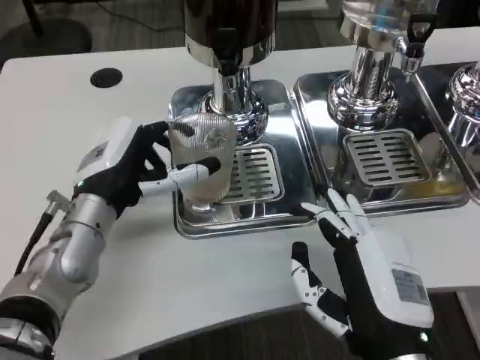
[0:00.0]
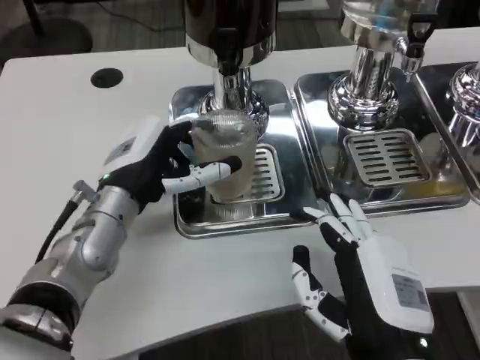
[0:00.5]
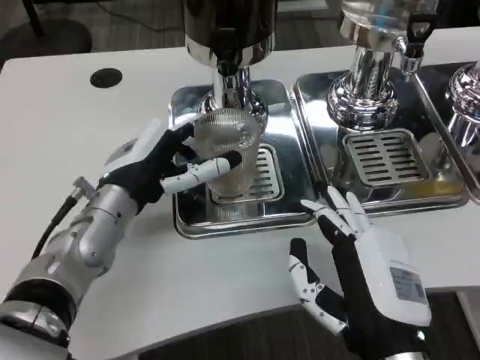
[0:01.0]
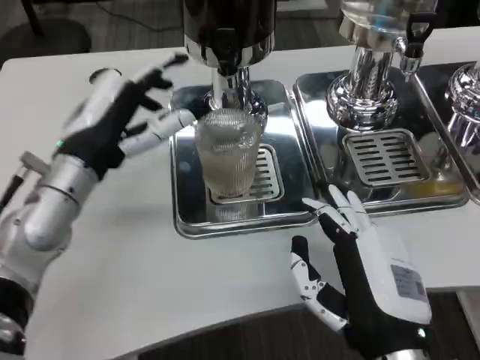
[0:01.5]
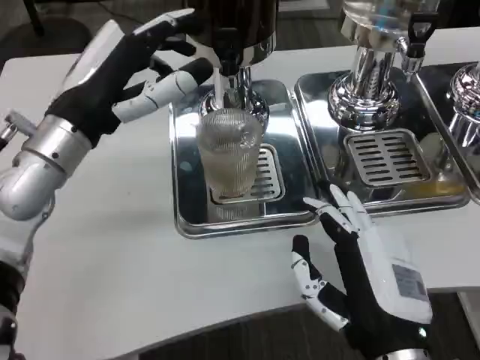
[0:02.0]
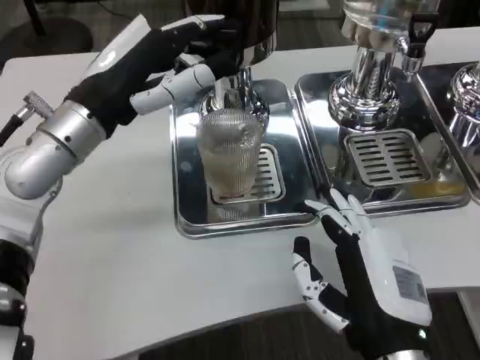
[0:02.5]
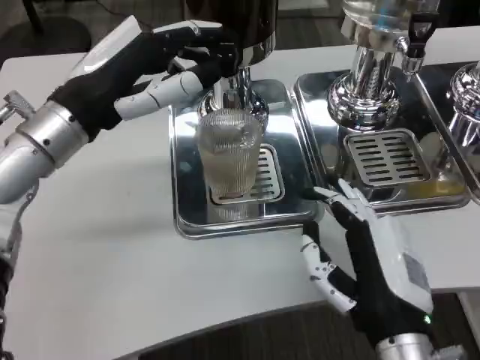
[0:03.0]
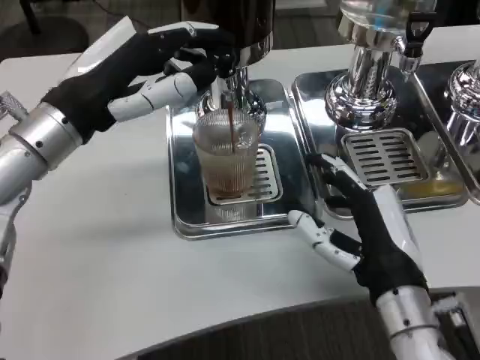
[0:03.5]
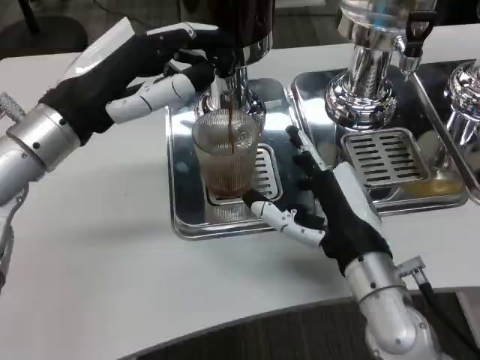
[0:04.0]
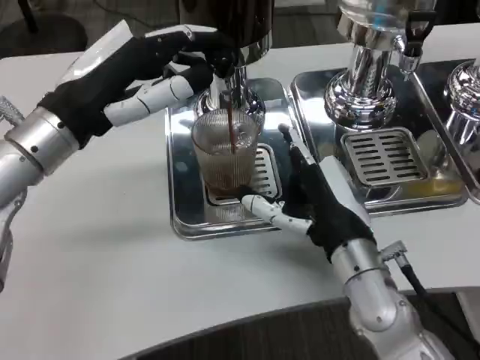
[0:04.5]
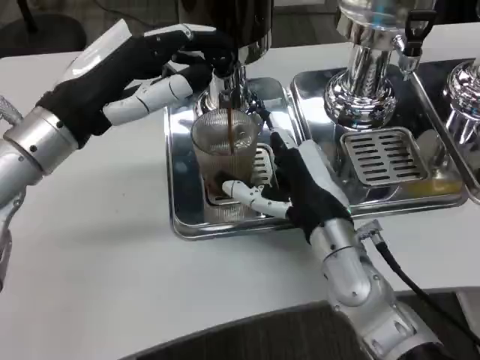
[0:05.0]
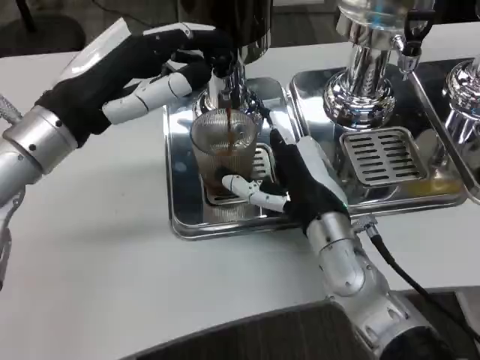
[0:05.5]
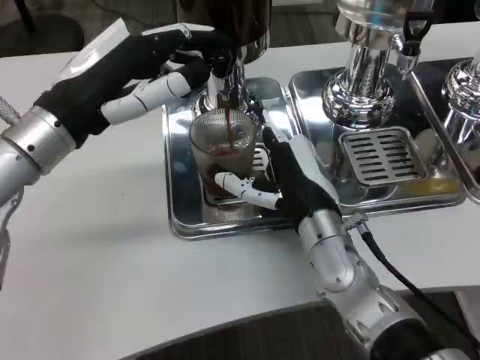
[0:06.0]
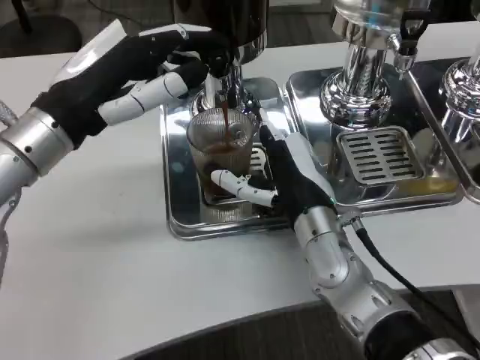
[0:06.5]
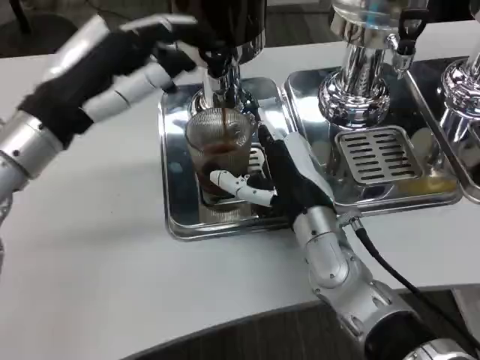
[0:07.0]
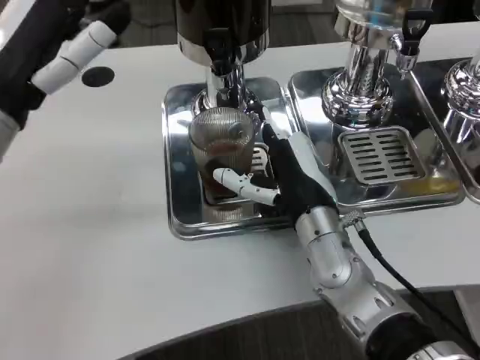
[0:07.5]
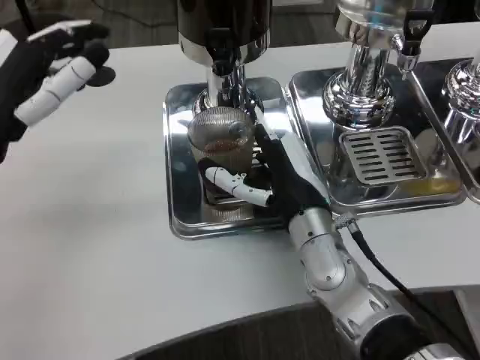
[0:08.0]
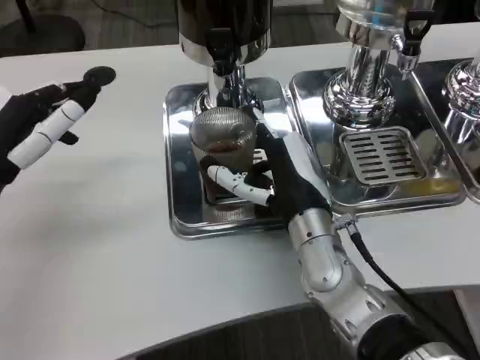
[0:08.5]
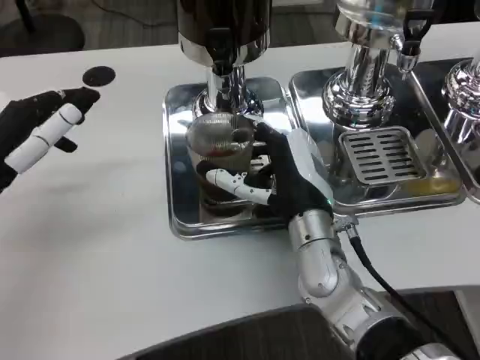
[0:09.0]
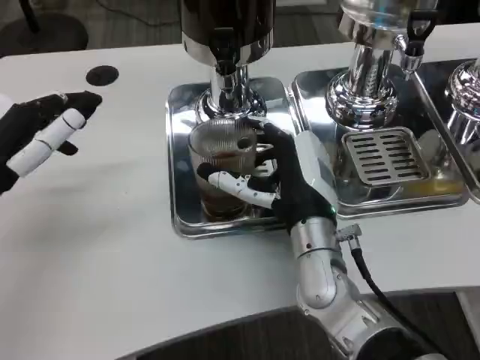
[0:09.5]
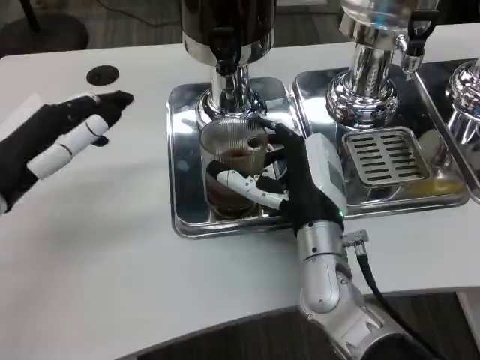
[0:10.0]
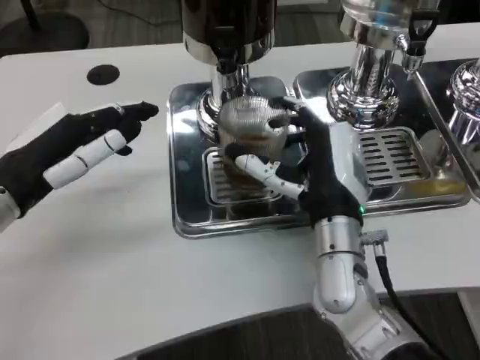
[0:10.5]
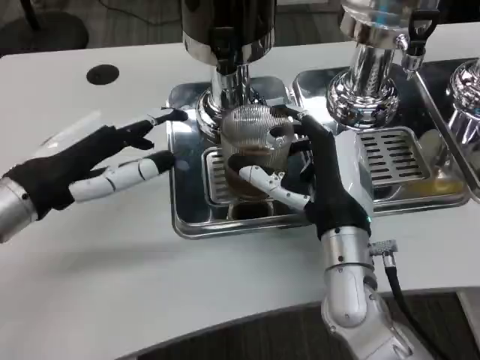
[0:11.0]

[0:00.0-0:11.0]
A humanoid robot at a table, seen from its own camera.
Task of the whole recording: Grasp the cup under the faucet to collect the drink, then remove the cup.
0:00.0 to 0:02.0: The left hand goes roughly 10 cm upward.
0:02.0 to 0:03.5: The right hand heads forward, covering about 5 cm.
0:03.5 to 0:05.5: The right hand goes approximately 10 cm forward and to the left.
0:07.5 to 0:09.0: The left hand moves approximately 5 cm.

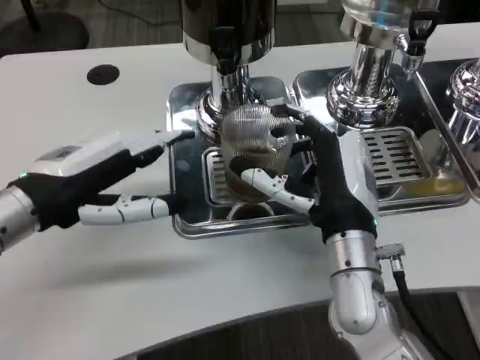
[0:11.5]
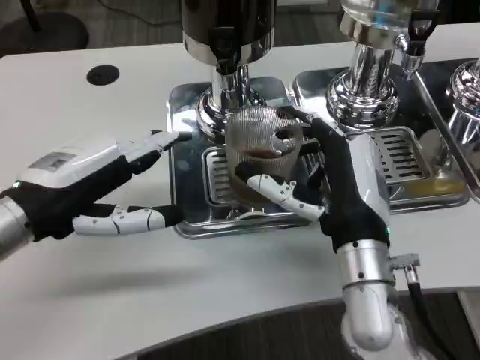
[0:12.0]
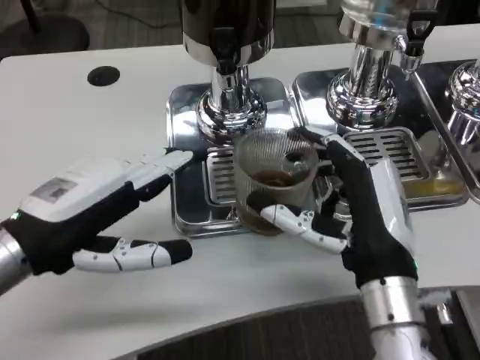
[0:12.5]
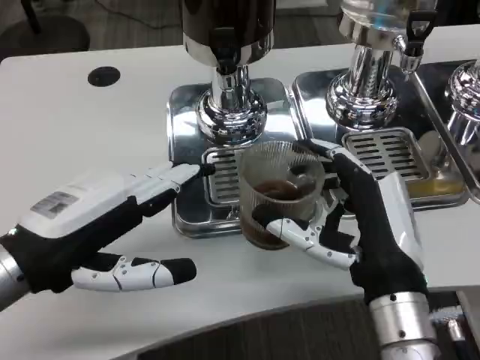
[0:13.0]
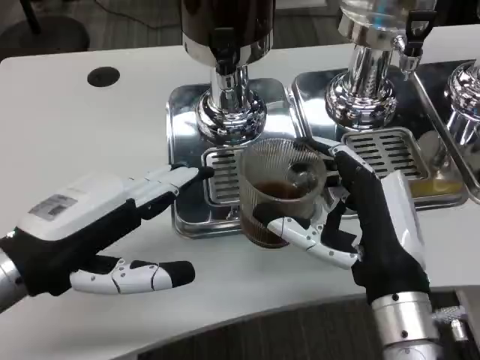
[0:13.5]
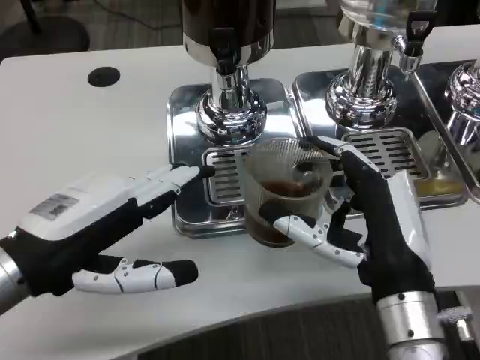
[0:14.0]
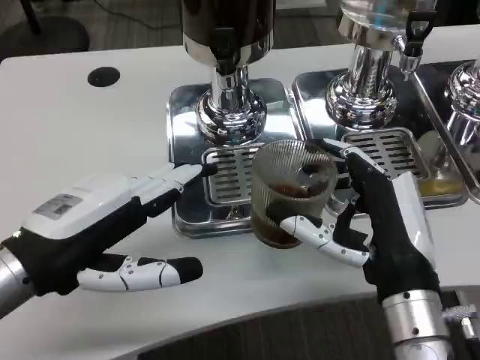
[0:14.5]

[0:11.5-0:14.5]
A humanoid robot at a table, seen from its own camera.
Task of the whole recording: Grasp the cup under the faucet to collect the drink, then remove the cup.
0:11.5 to 0:13.0: The two hands go approximately 5 cm backward.
0:13.0 to 0:14.5: The two hands keep their place.

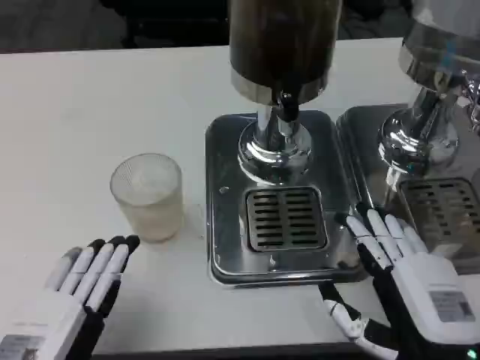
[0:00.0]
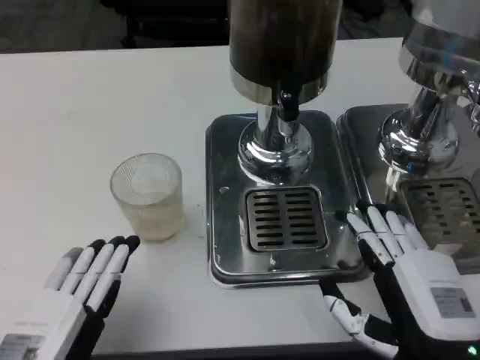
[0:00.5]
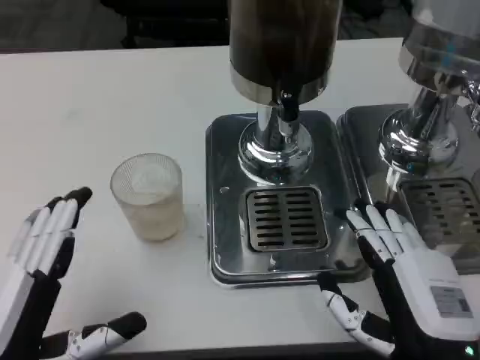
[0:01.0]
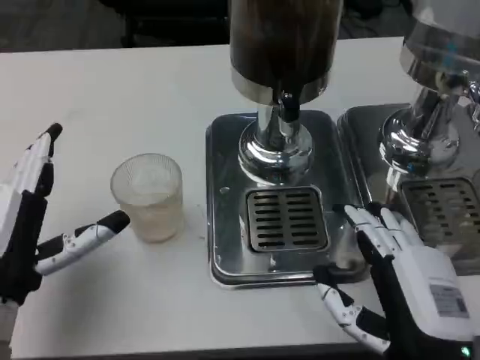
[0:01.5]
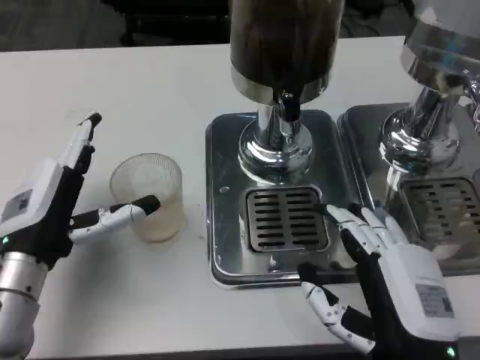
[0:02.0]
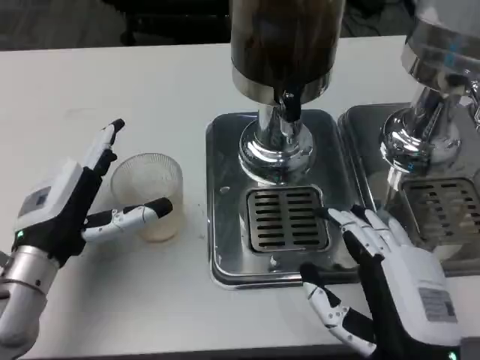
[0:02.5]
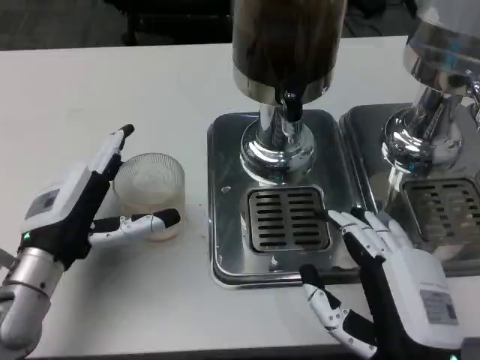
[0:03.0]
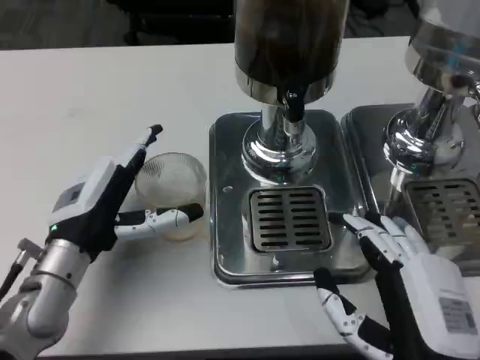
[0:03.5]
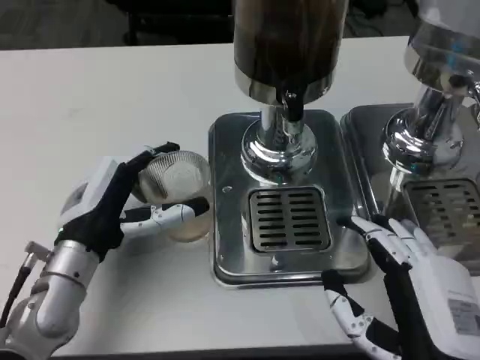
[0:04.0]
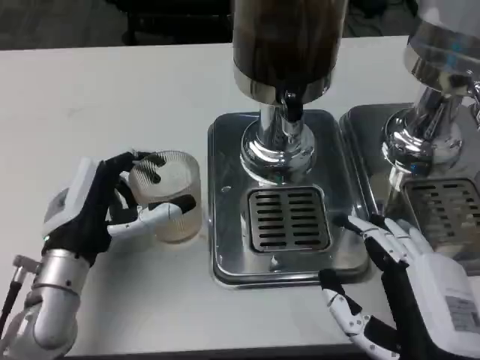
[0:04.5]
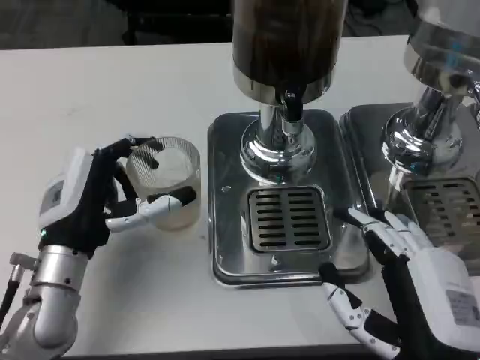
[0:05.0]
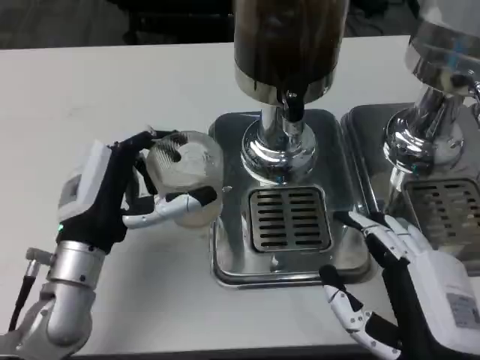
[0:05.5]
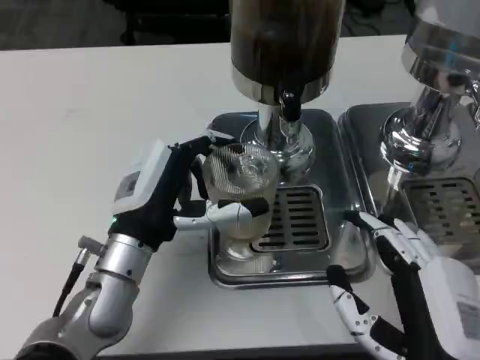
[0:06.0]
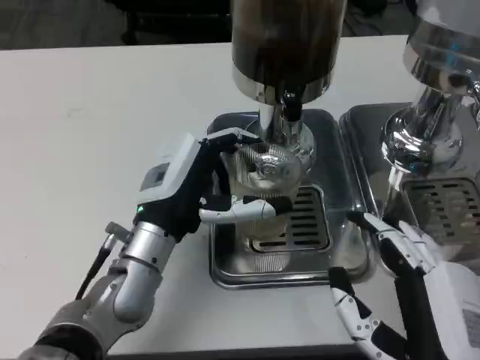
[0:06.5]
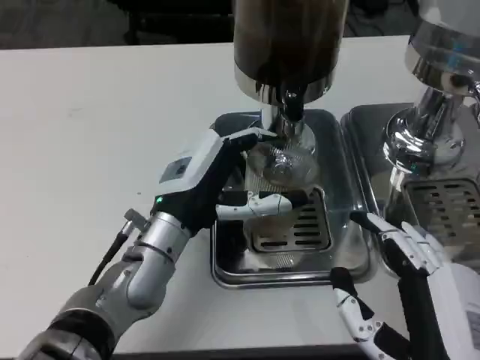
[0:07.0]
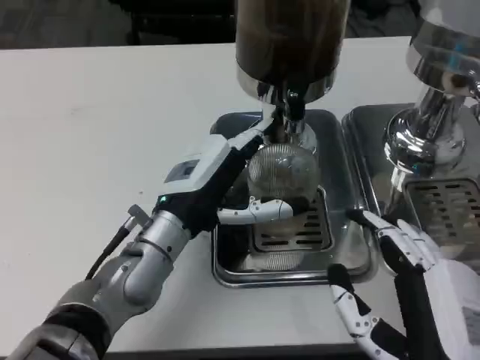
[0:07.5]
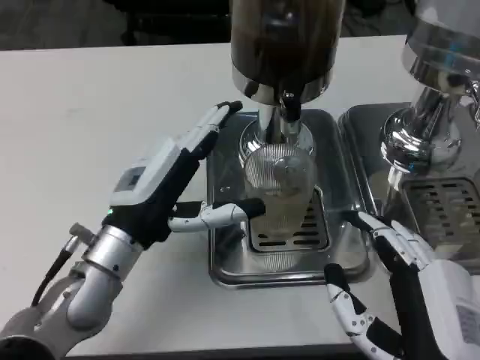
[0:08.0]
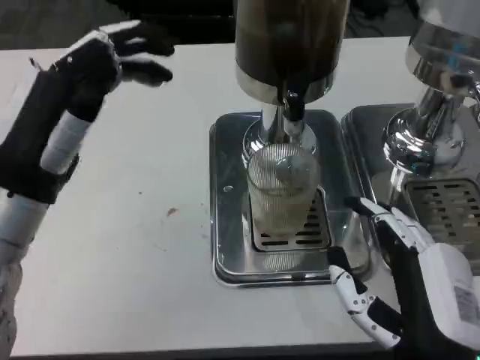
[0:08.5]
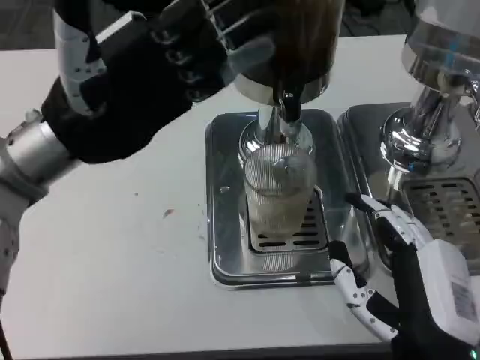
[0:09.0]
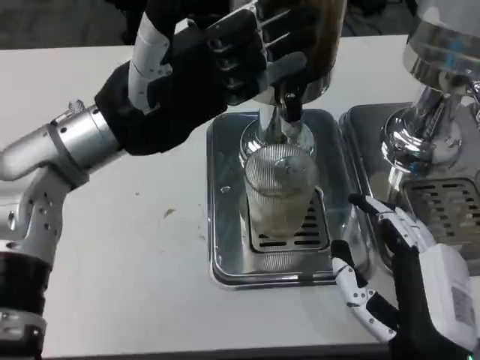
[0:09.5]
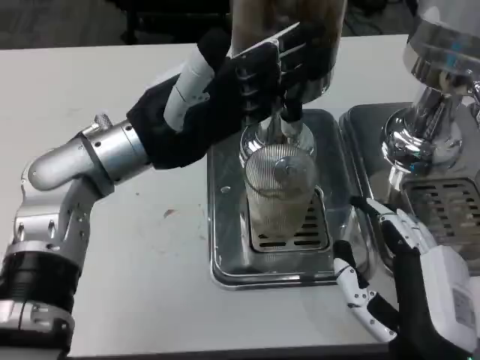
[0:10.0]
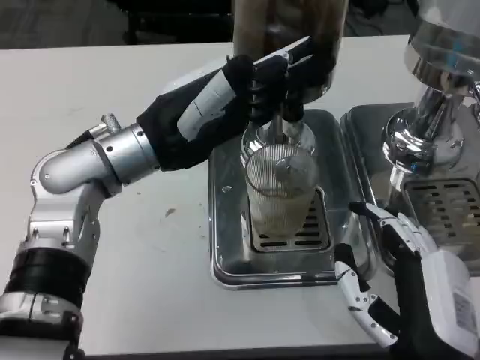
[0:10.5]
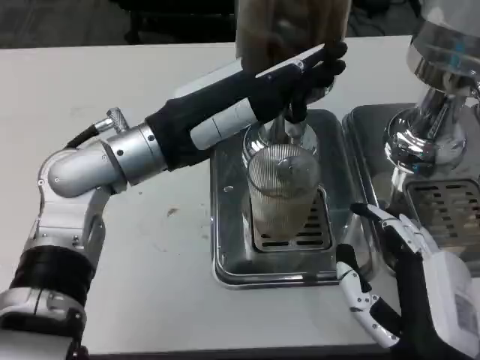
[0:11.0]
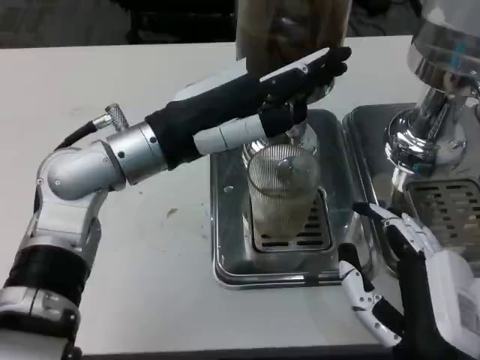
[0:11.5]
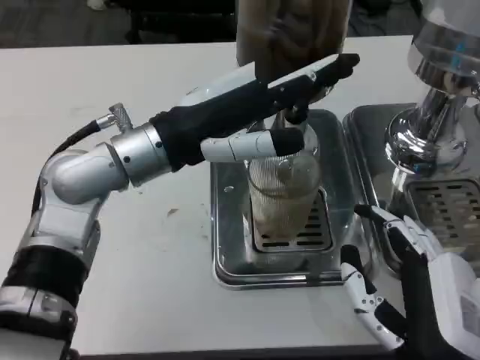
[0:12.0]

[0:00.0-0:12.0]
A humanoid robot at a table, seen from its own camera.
Task of the whole recording: Grasp the cup under the faucet to collect the drink, then remove the cup.
0:00.0 to 0:02.0: The left hand heads forward, covering approximately 15 cm.
0:04.0 to 0:06.0: The left hand is displaced to the right by roughly 5 cm.
0:06.0 to 0:08.0: There are only small adjustments of the hands.
0:08.0 to 0:10.0: The left hand moves upward and forward, about 15 cm.
